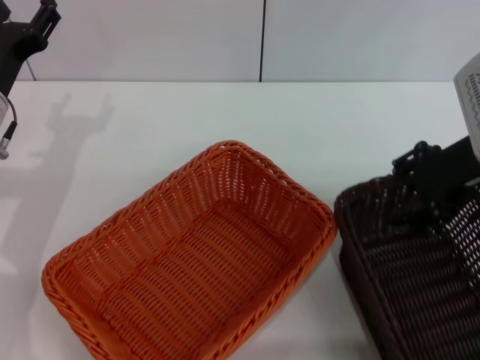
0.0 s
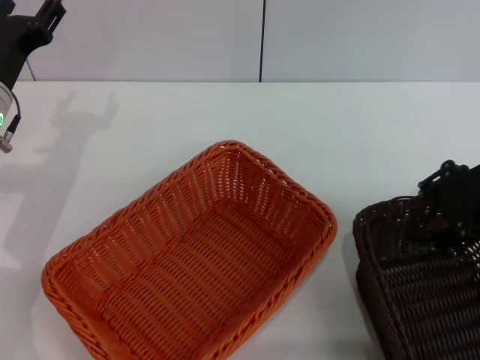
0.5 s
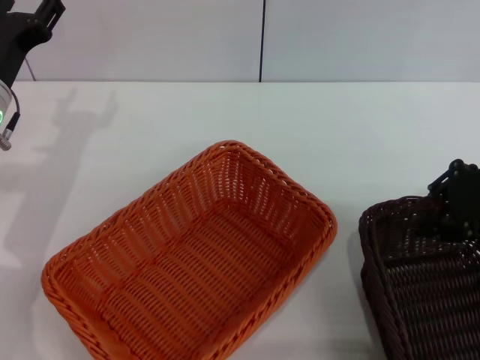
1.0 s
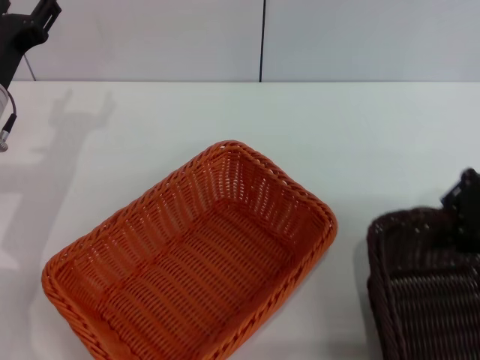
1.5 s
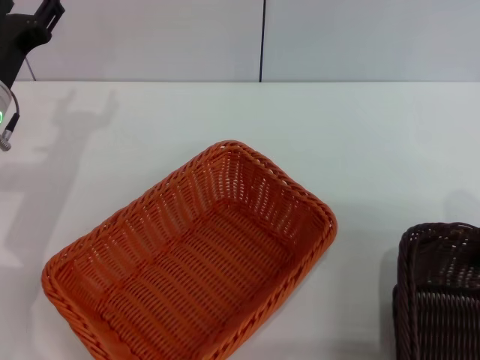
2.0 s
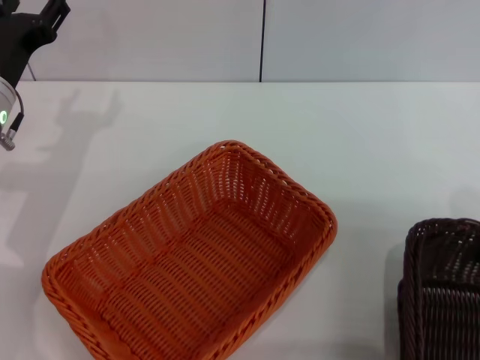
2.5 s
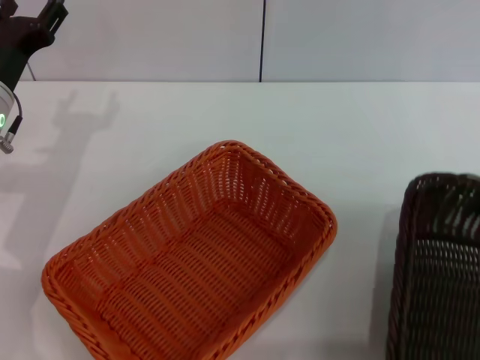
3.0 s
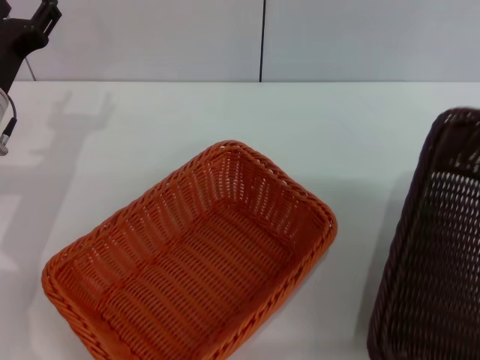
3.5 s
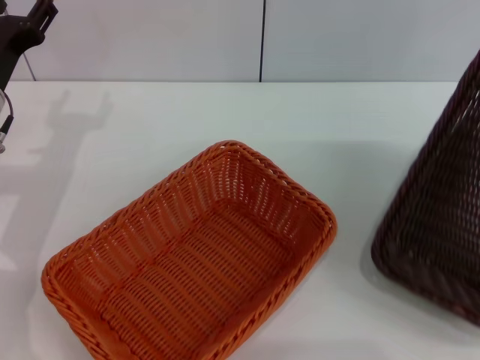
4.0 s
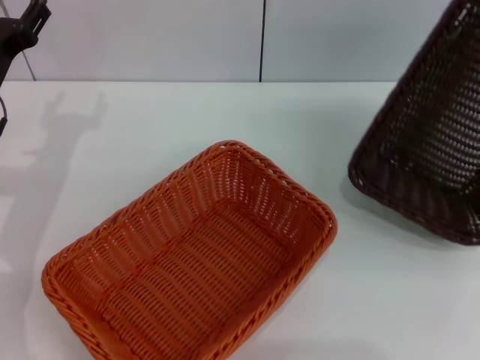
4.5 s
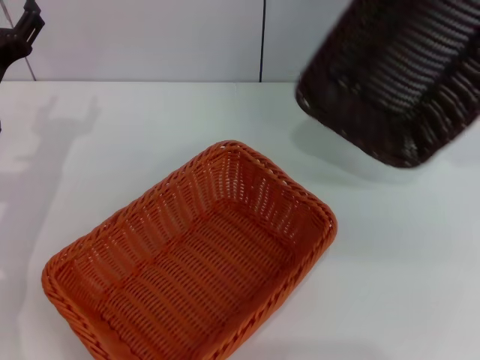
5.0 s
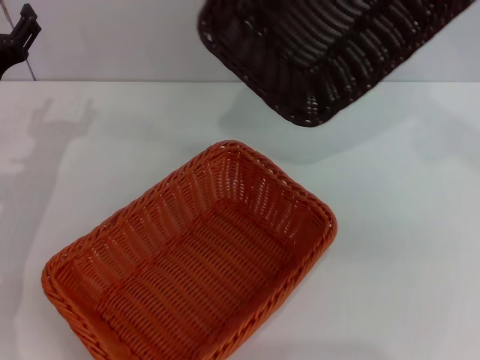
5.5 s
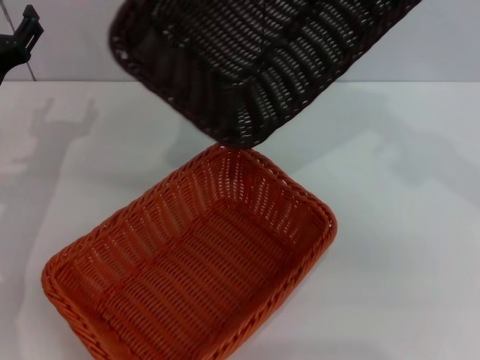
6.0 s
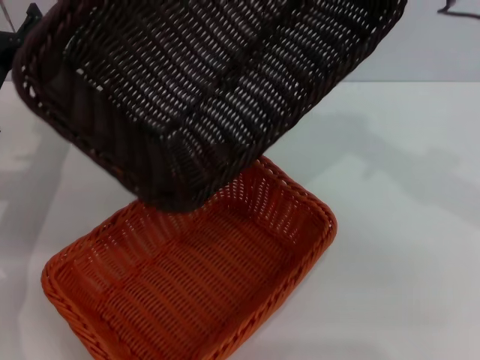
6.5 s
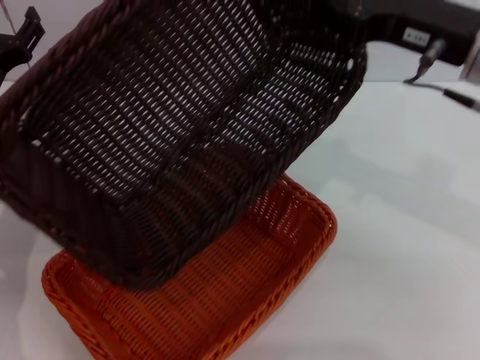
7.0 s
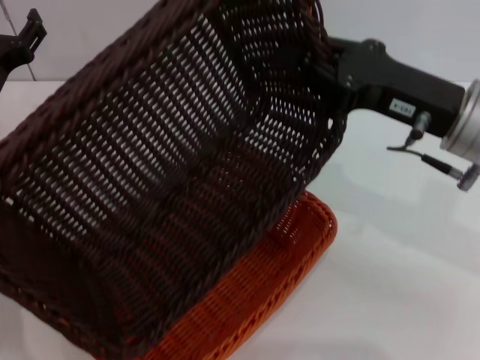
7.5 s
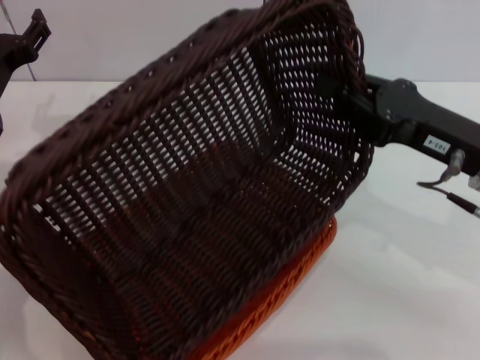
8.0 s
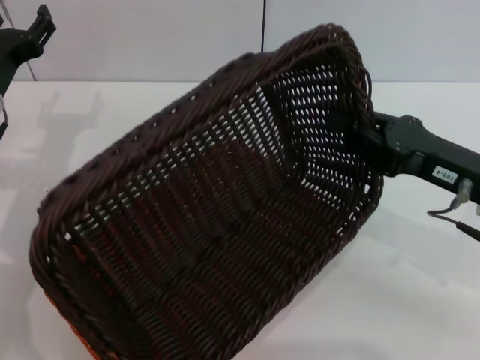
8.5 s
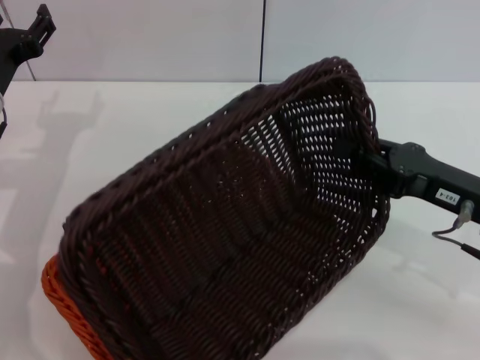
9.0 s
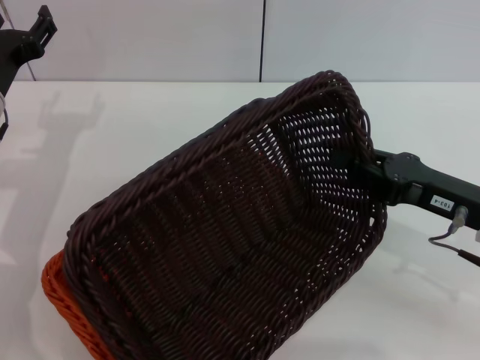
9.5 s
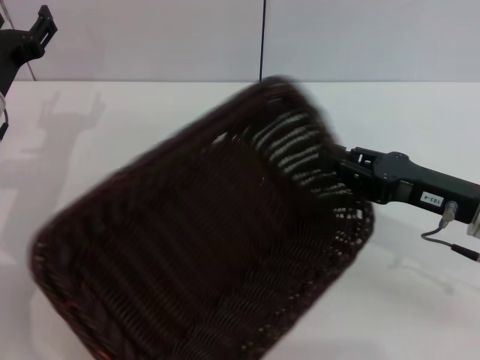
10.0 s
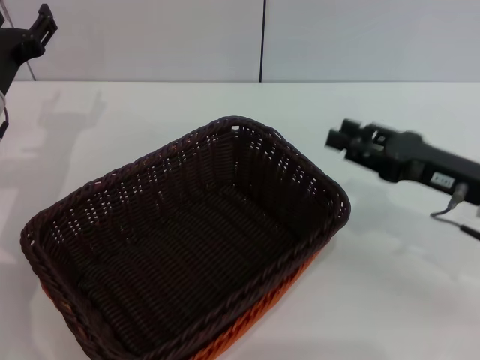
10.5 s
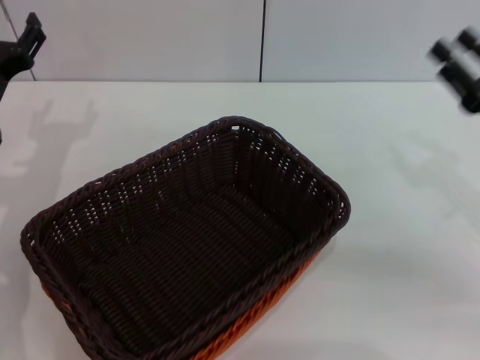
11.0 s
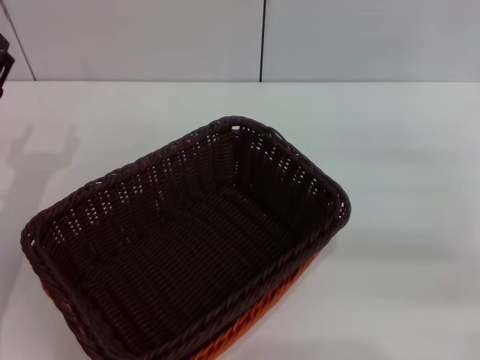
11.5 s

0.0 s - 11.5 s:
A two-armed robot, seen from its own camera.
Step, 0.0 s - 2.5 s: Pick up the dark basket with the right gripper.
Step, 3.0 s - 10.0 s: Place the dark basket on the light basket with the right gripper.
0.0 s - 2.0 s: The right gripper travels to the right by some 5 cm, and closes its fingers.
2.0 s - 4.0 s: The right gripper travels upward and to the right by some 10 cm.
4.0 s - 6.0 s: The right gripper travels to the left by roughly 15 cm.
6.0 s - 7.5 s: The right gripper goes about 15 cm downward and backward.
7.5 s - 9.5 s: The right gripper travels downward and to the right by roughly 10 cm.
9.5 s - 11.5 s: The right gripper shifts some 10 cm to the right, and opens up. The left gripper is displaced backward by about 10 cm.
